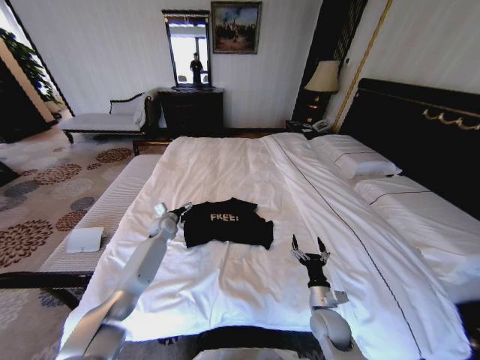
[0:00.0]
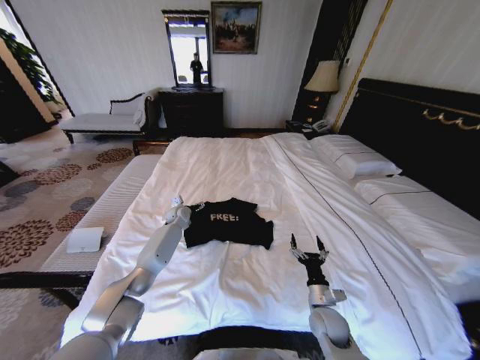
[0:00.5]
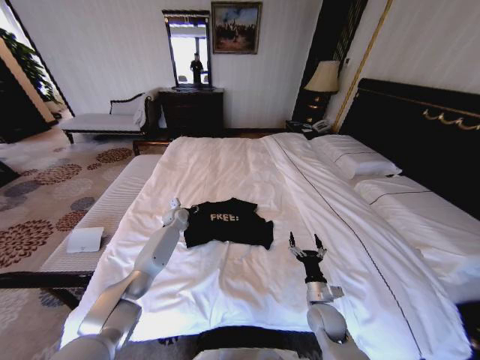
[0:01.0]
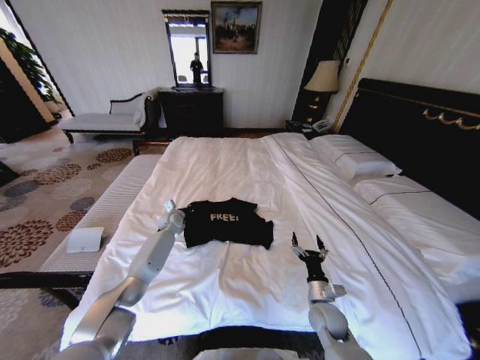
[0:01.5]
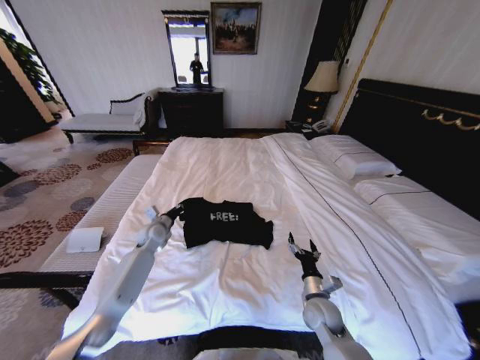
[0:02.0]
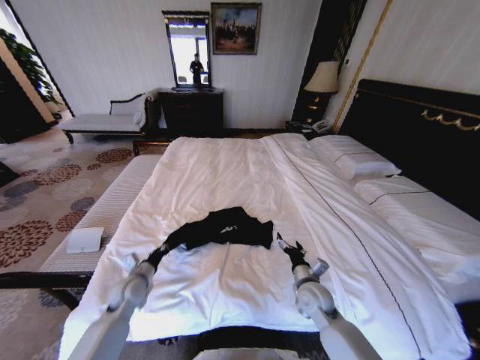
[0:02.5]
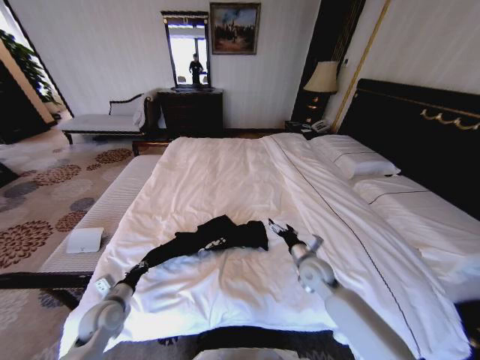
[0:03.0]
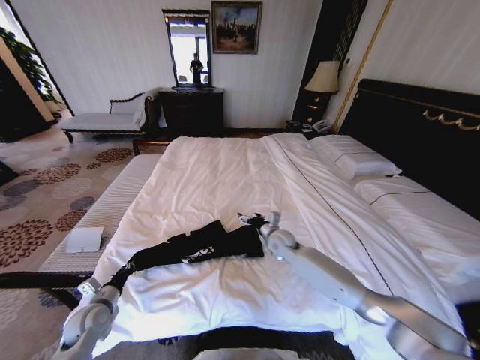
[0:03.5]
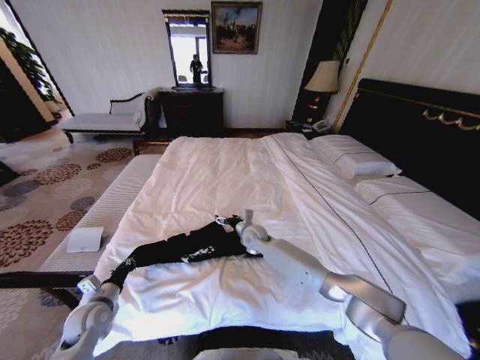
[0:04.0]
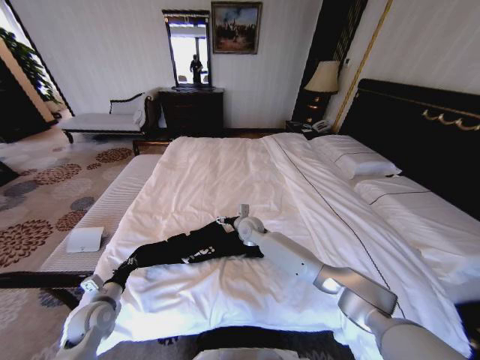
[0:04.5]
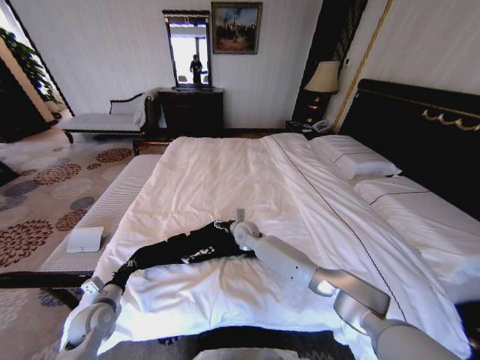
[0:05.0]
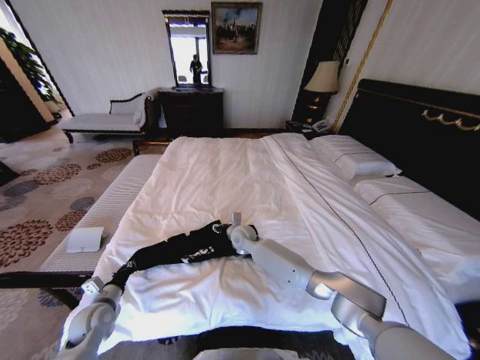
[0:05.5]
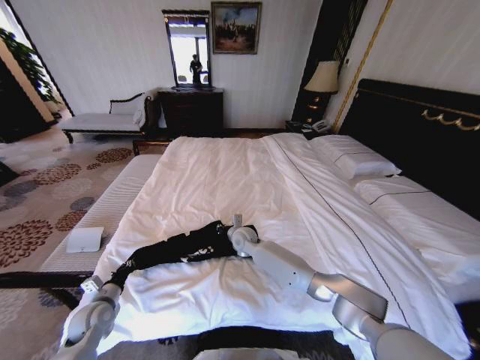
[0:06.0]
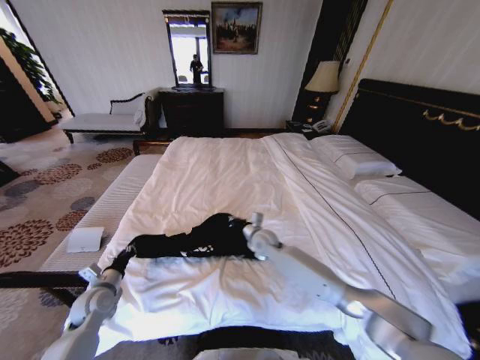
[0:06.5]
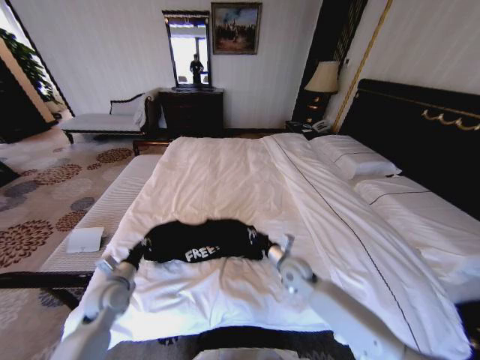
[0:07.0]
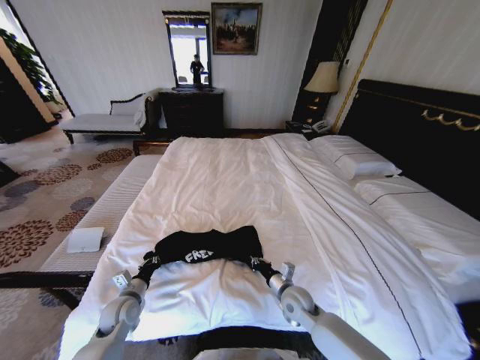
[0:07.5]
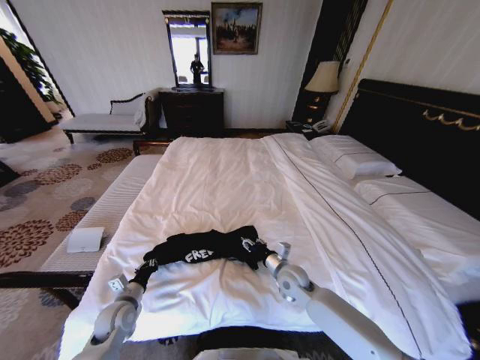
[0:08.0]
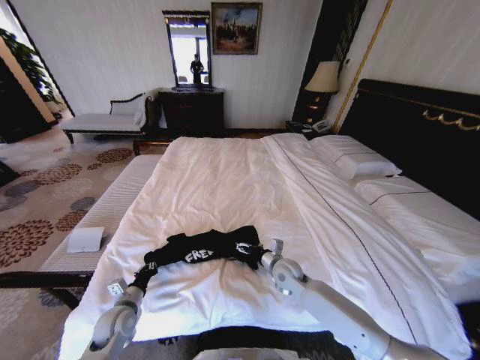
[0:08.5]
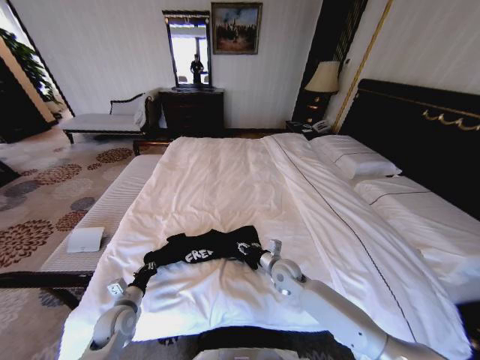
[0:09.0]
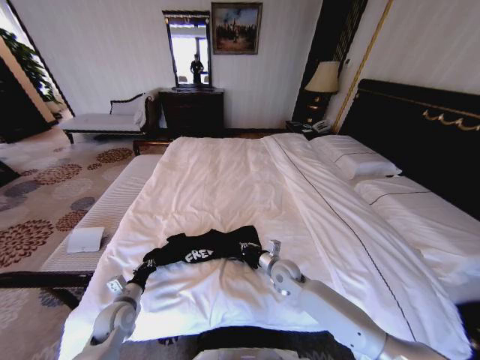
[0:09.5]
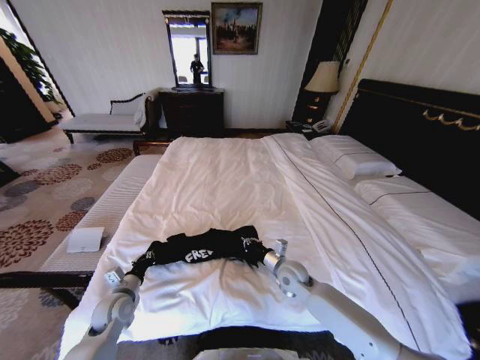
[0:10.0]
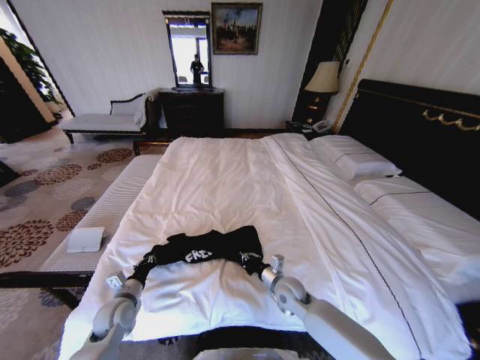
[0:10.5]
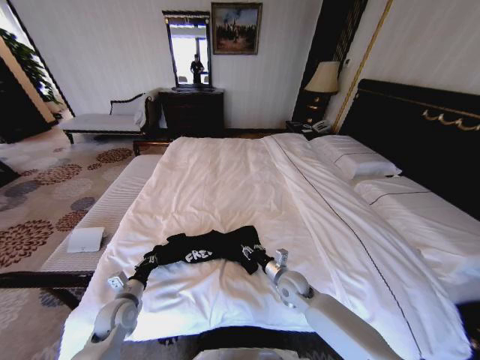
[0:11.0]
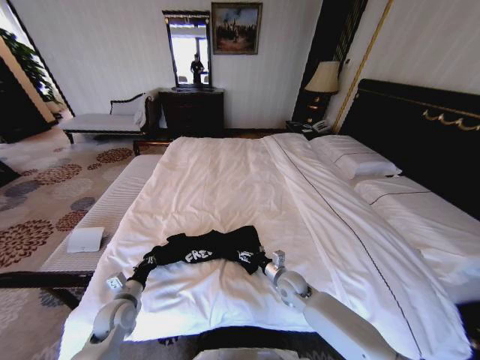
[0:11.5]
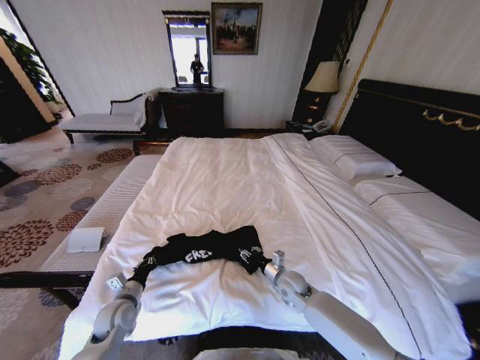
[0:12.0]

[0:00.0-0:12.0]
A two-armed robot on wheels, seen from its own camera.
Task of the whole recording: Fold the clothes on the bed.
0:00.0 to 0:02.0: The left gripper goes some 5 cm backward, and closes its fingers.
0:02.0 to 0:04.0: The right gripper is displaced forward and to the left by some 30 cm. The left gripper shifts some 25 cm backward and to the left.
0:04.0 to 0:06.0: The right gripper closes its fingers.
0:06.0 to 0:08.0: The right gripper shifts some 20 cm backward and to the right; the left gripper heads to the right, covering roughly 5 cm.
0:08.0 to 0:10.0: The right gripper closes its fingers.
0:10.0 to 0:12.0: The right gripper is displaced downward by roughly 5 cm, and opens up.

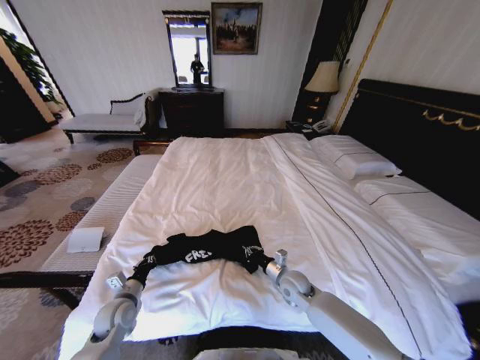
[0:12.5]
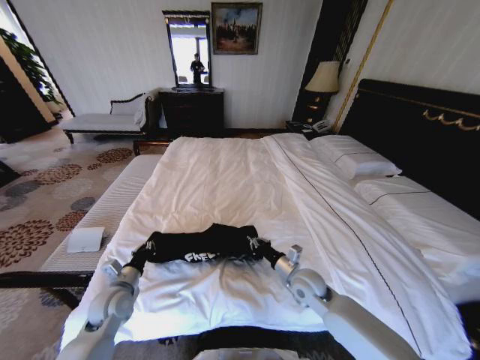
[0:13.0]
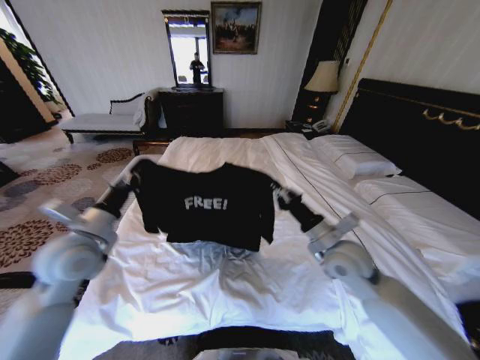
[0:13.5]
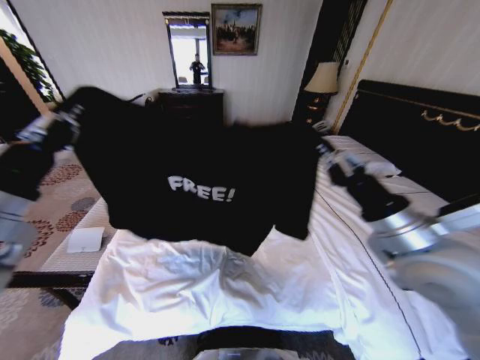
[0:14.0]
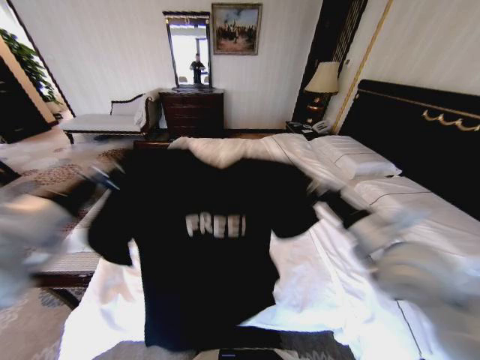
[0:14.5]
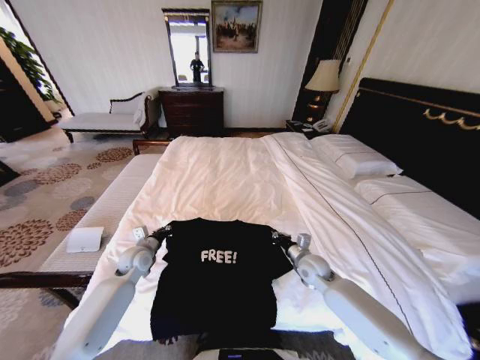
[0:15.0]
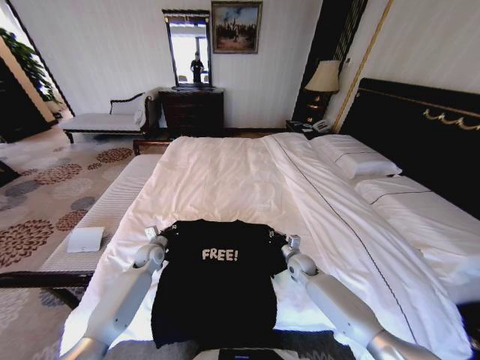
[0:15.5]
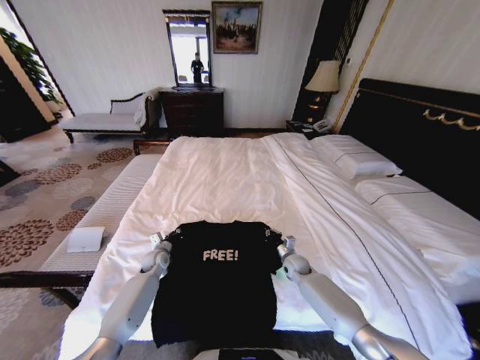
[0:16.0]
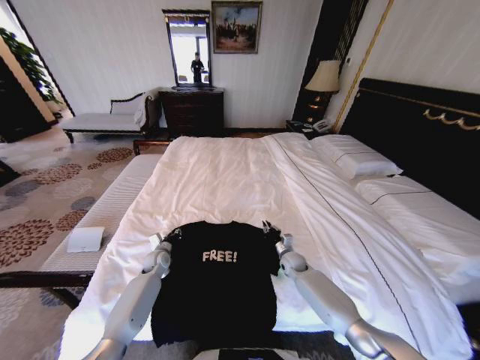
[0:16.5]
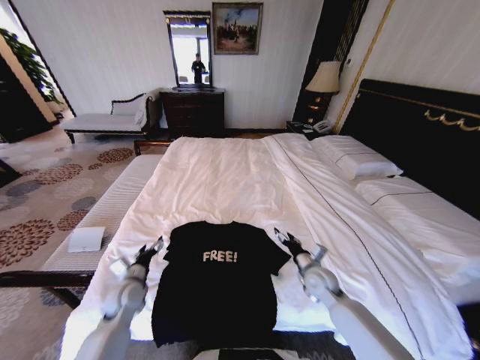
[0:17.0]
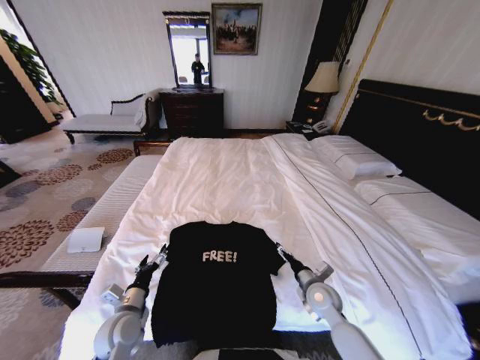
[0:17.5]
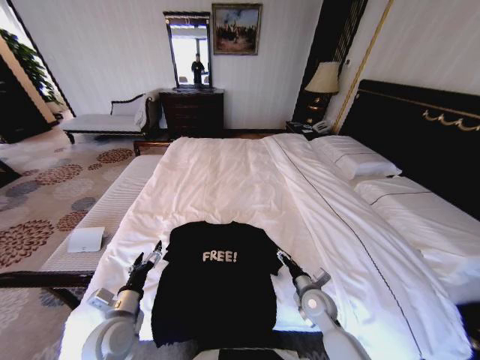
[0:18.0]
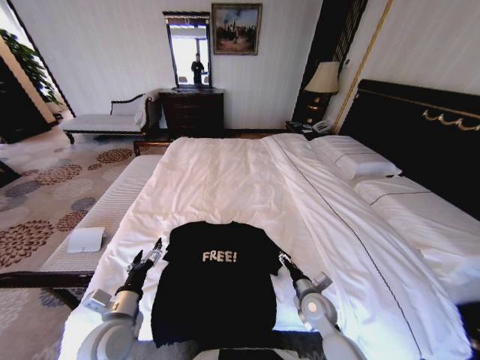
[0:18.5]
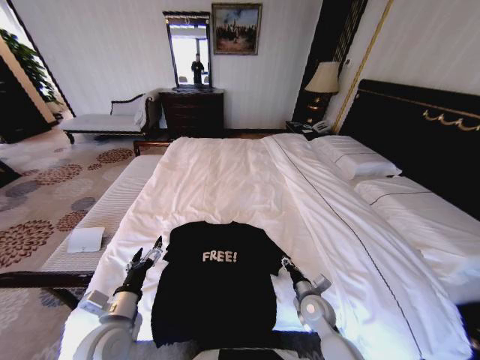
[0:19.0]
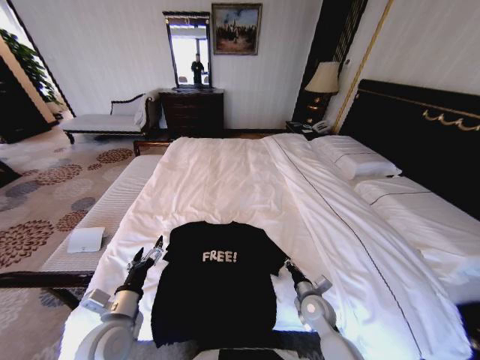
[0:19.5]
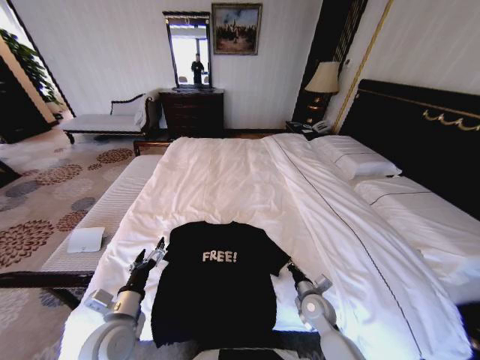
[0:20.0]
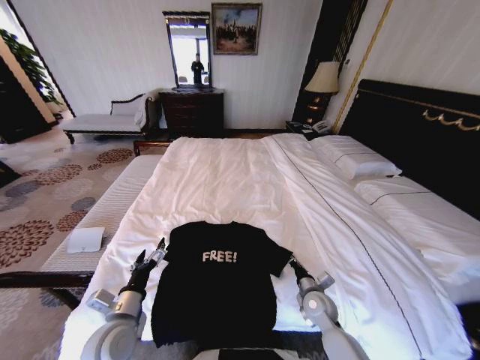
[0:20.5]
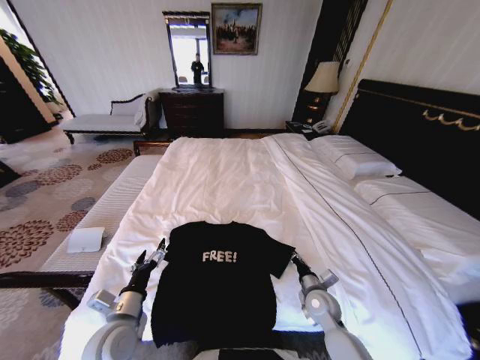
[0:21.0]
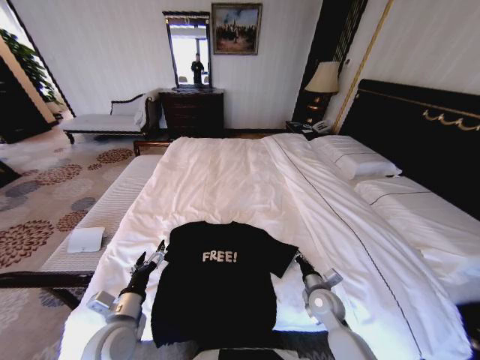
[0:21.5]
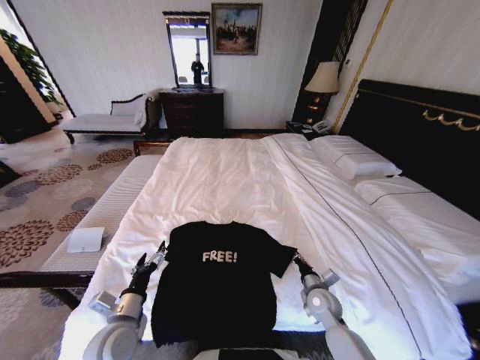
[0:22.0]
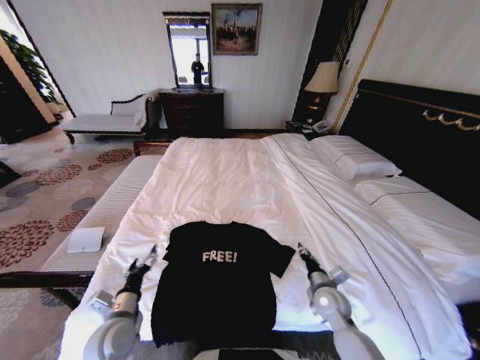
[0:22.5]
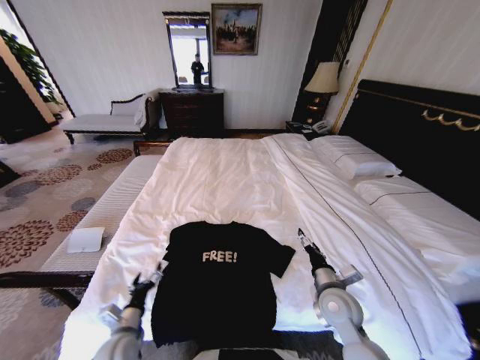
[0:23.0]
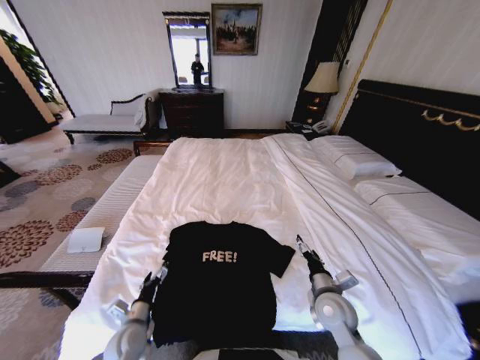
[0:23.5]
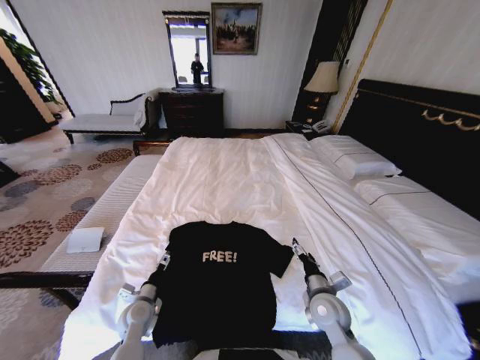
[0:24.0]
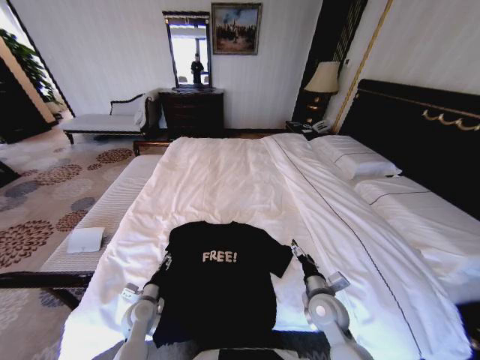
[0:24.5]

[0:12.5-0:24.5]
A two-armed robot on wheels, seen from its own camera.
Task of the whole recording: Fold the clothes on the bed.
0:12.5 to 0:14.5: Both grippers move upward, about 35 cm.
0:14.5 to 0:16.5: Both grippers travel together downward and forward, some 40 cm.
0:16.5 to 0:18.5: The right gripper travels backward by about 15 cm, and opens up. Meanwhile the left gripper heads backward and upward, covering about 30 cm, and opens its fingers.
0:18.5 to 0:20.5: The right gripper closes.
0:20.5 to 0:22.5: The right gripper shifts by some 5 cm, and opens its fingers.
0:22.5 to 0:24.5: The left gripper travels downward and forward by roughly 10 cm. The right gripper opens up.

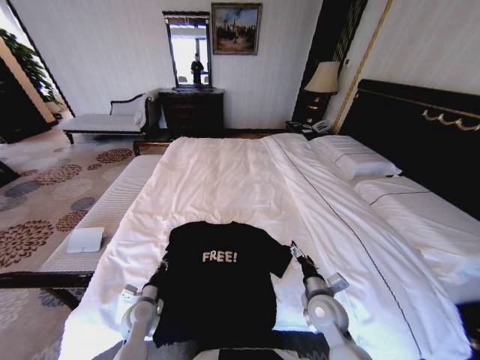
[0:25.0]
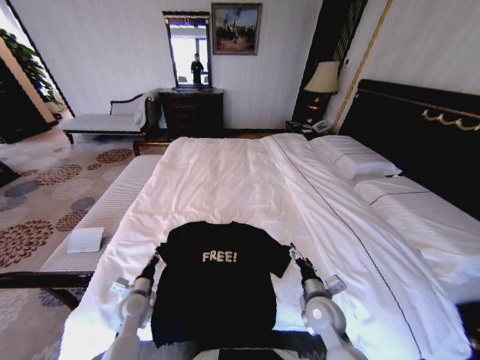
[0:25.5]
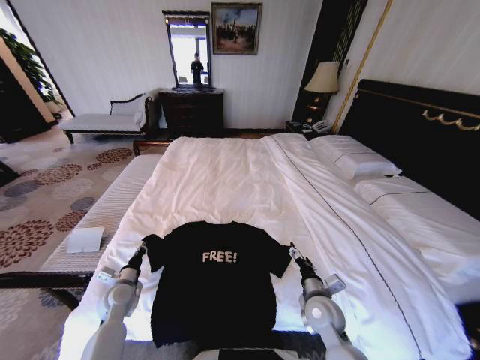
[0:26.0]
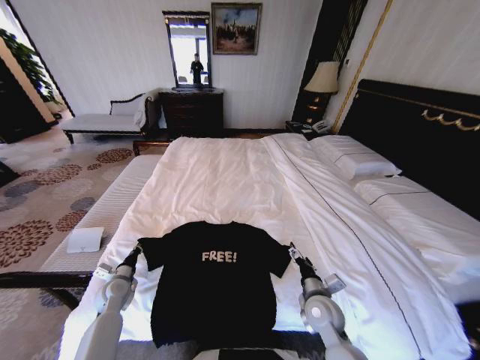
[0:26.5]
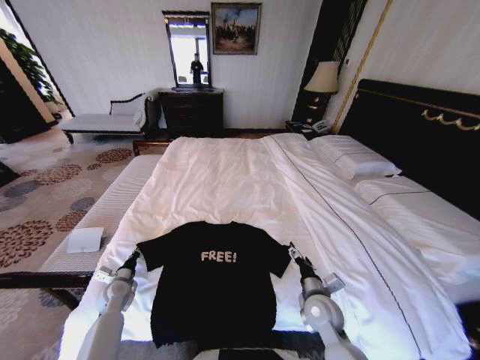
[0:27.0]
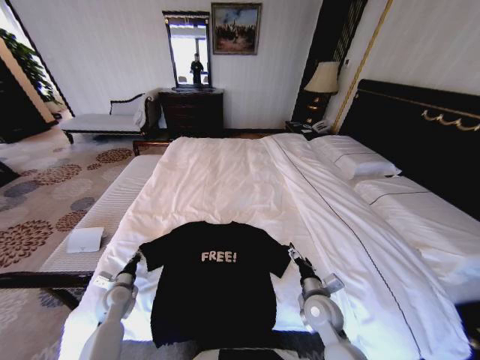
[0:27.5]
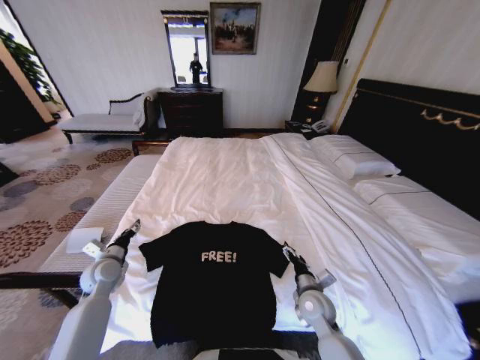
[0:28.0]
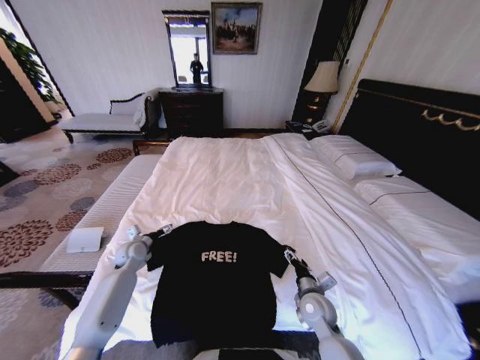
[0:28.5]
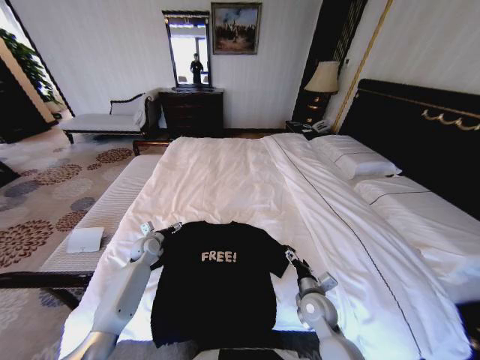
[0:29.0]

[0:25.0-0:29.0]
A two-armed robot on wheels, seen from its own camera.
Task of the whole recording: Fold the clothes on the bed.
0:25.0 to 0:27.0: The left gripper goes some 15 cm to the left and forward.
0:27.0 to 0:29.0: The left gripper heads forward, to the right and upward, covering about 15 cm, and opens.
